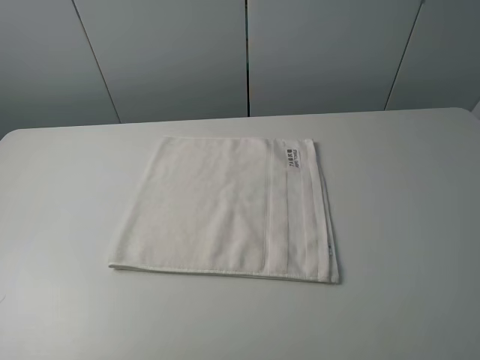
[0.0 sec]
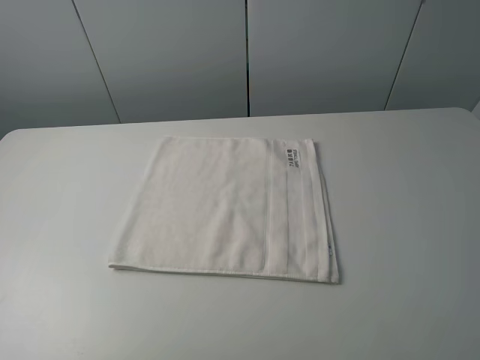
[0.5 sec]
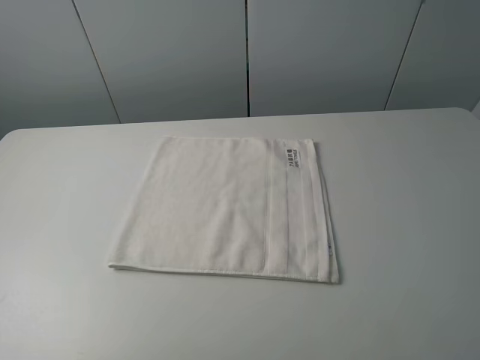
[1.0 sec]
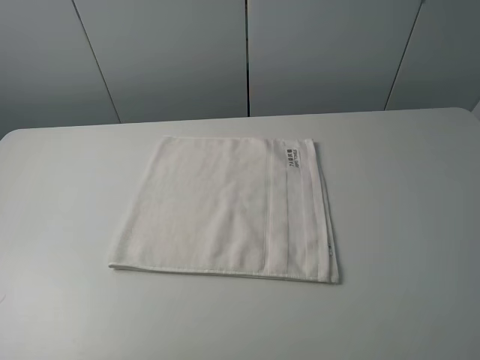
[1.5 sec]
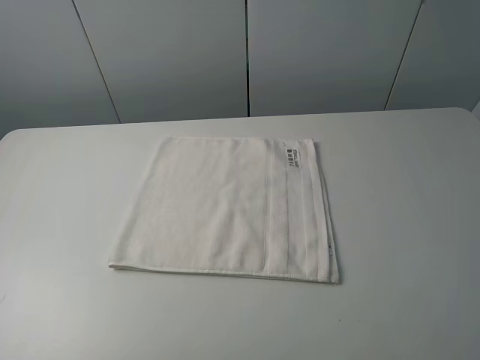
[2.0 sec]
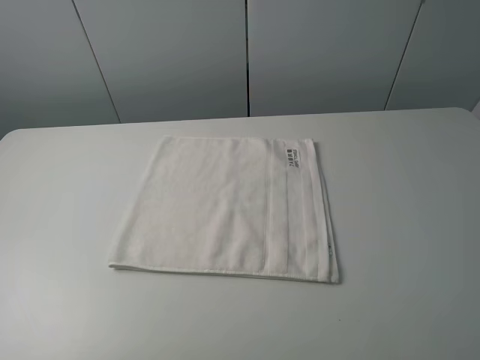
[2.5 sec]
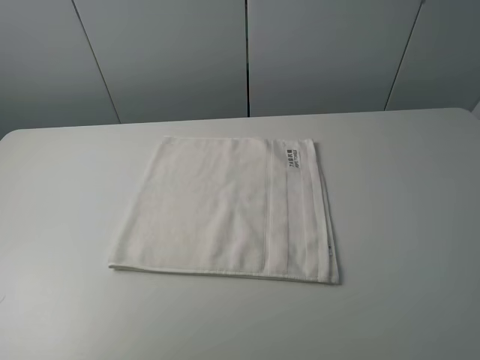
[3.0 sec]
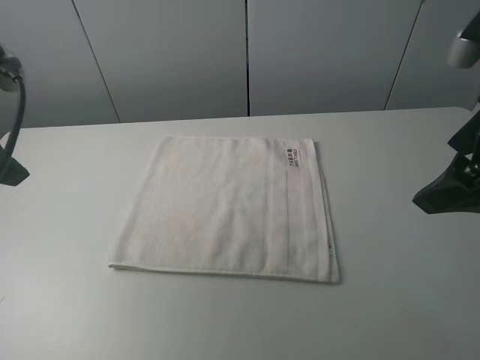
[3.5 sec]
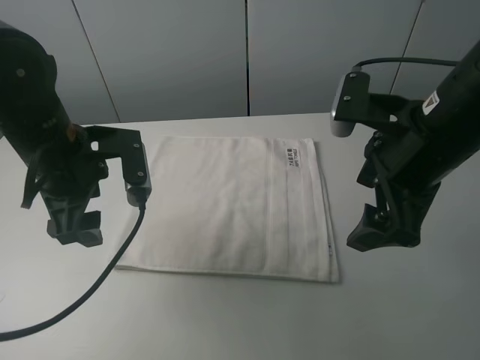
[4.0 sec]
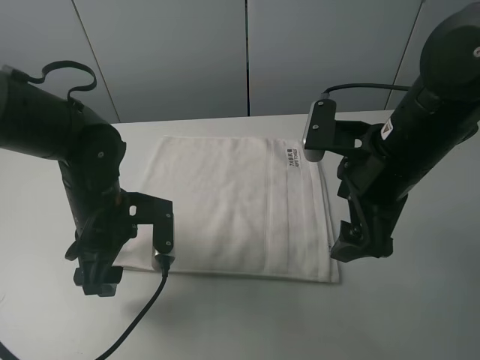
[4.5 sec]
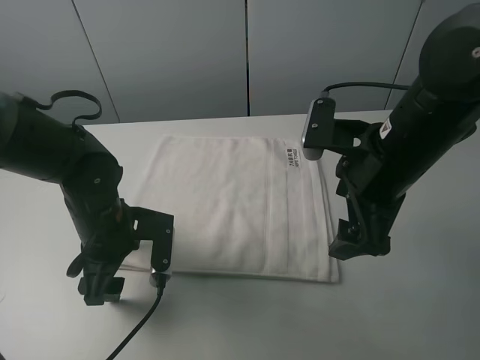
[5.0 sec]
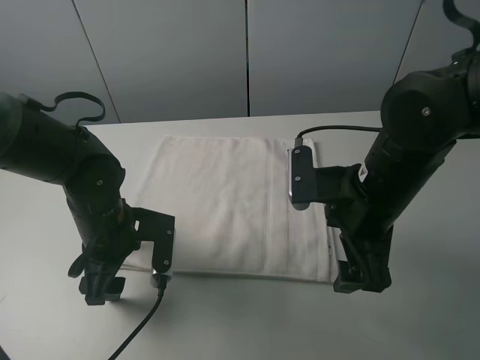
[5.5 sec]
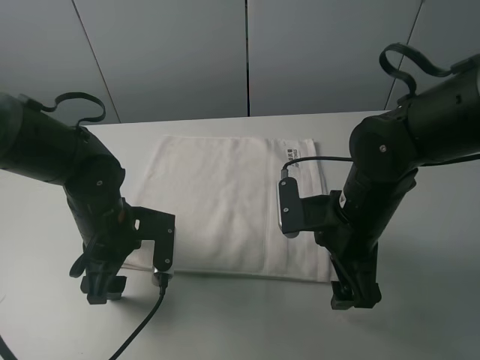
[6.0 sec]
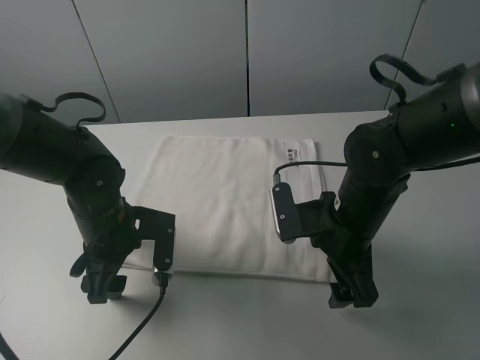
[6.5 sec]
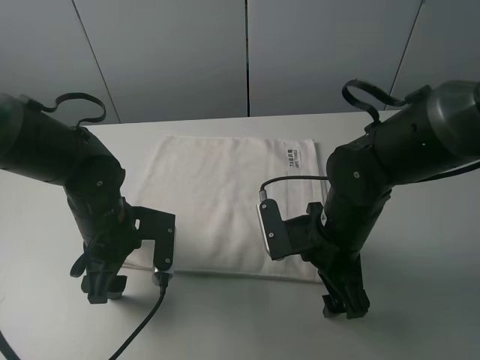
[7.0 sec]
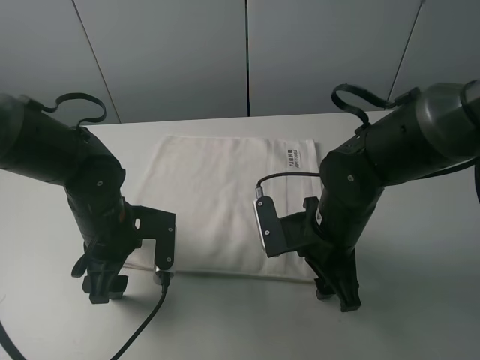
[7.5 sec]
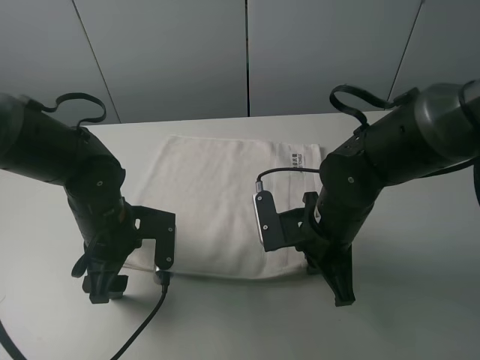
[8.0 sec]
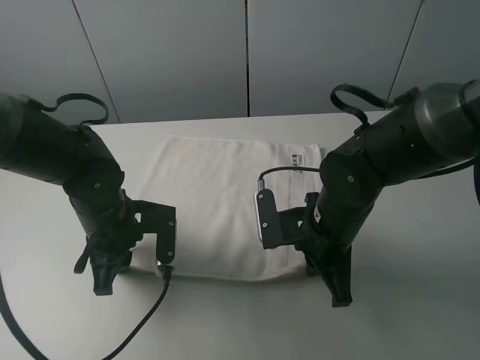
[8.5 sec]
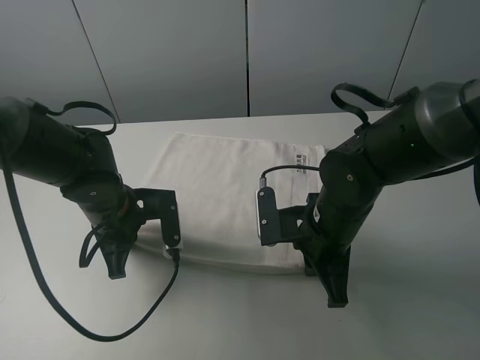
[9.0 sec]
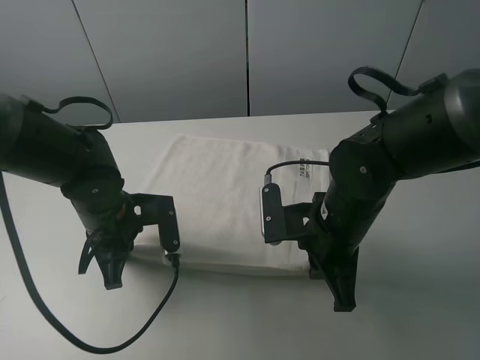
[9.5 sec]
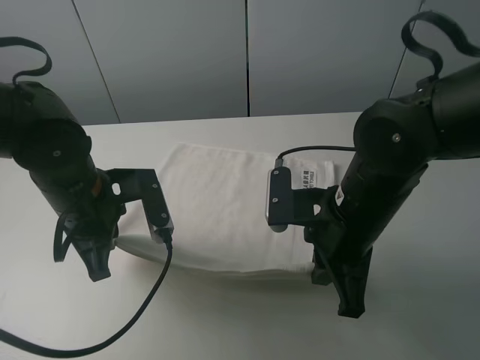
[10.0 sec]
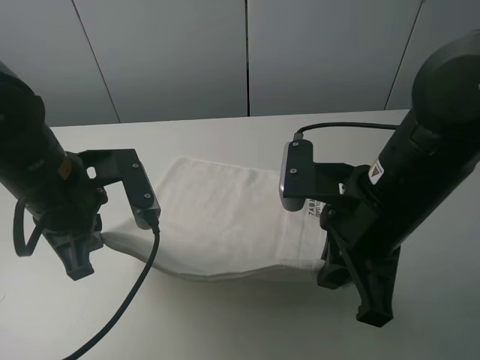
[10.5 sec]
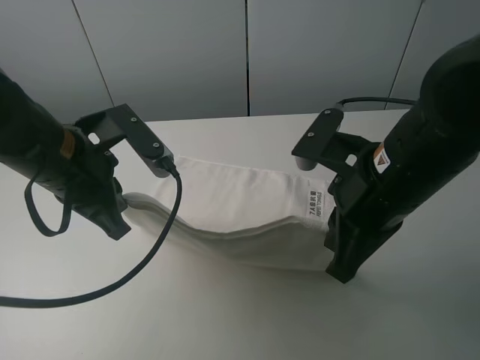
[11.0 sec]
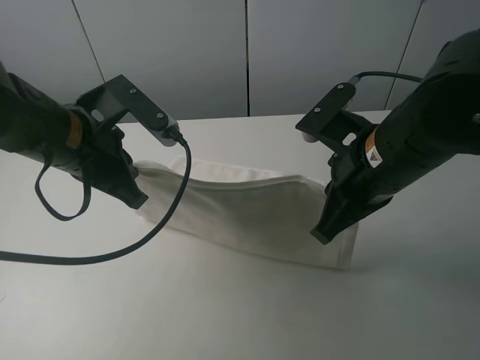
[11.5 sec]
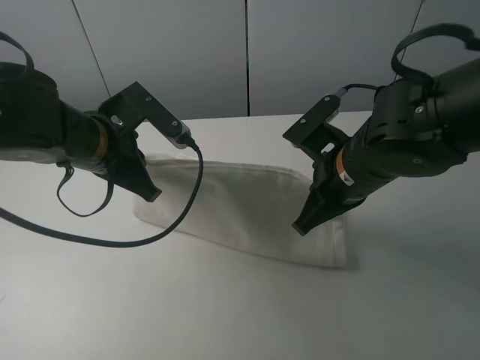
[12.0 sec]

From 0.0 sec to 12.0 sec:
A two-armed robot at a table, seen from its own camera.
Task of the whole recording: fold the towels on the table.
Step, from 0.0 sec to 8.0 sec: Grasp the white towel with the right gripper.
From 0.0 sec to 2.0 sec: Neither gripper changes place.
From 2.0 sec to 4.0 sec: The right gripper moves forward and to the left, approximately 25 cm, while the left gripper shifts roughly 30 cm forward and to the right.
From 4.0 sec to 6.0 sec: Both grippers move downward, approximately 10 cm.
From 6.0 sec to 8.0 sec: The right gripper closes.
From 8.0 sec to 10.0 sec: Both grippers travel together upward, about 5 cm. The left gripper closes.
From 10.0 sec to 12.0 sec: The left gripper ends up roughly 5 cm from where it was.

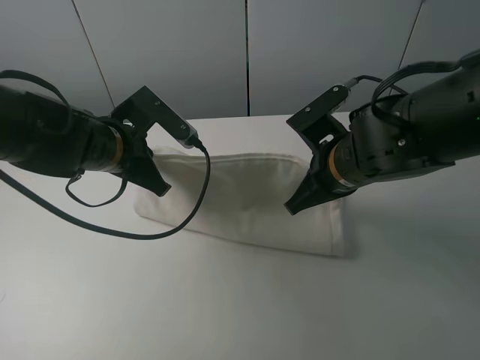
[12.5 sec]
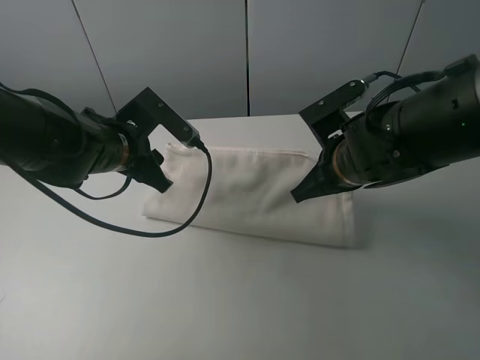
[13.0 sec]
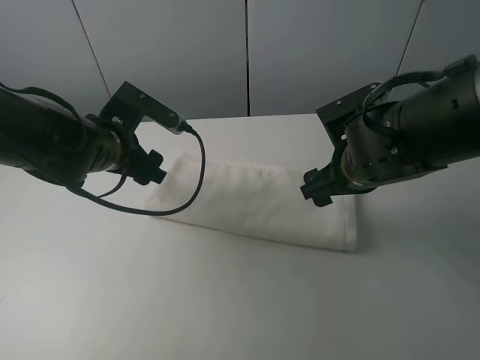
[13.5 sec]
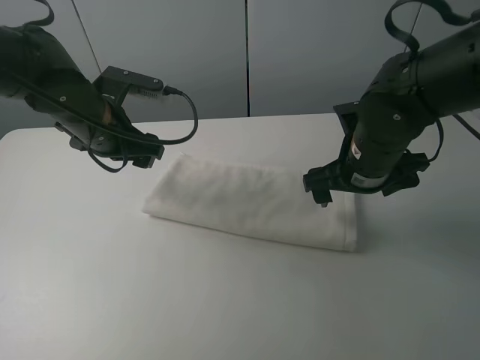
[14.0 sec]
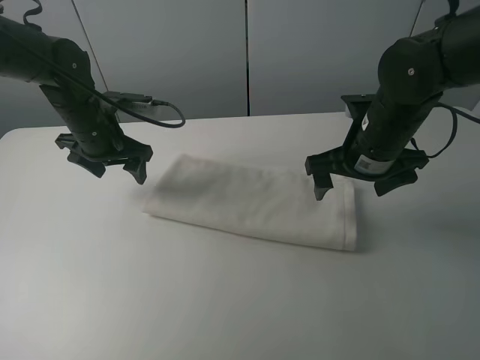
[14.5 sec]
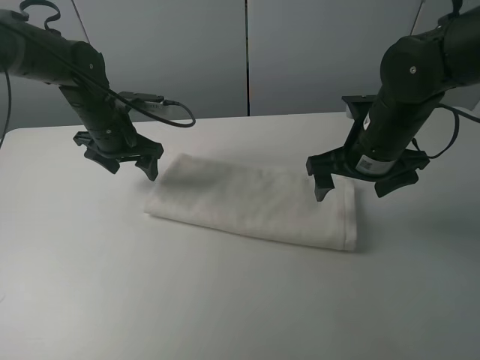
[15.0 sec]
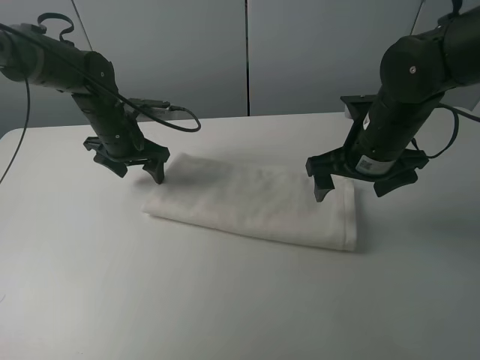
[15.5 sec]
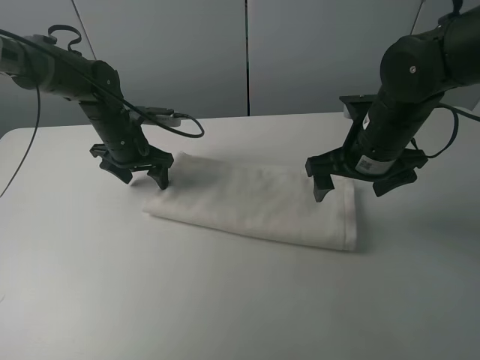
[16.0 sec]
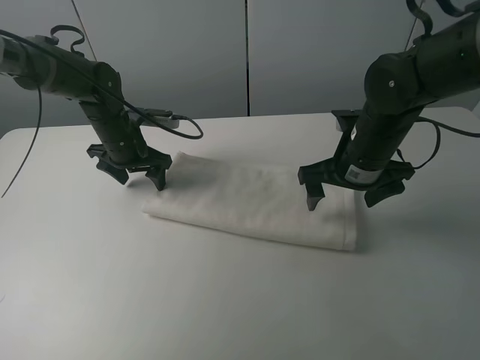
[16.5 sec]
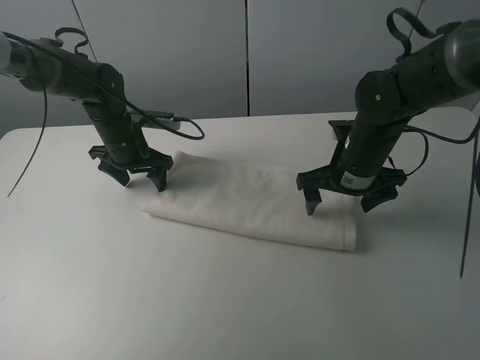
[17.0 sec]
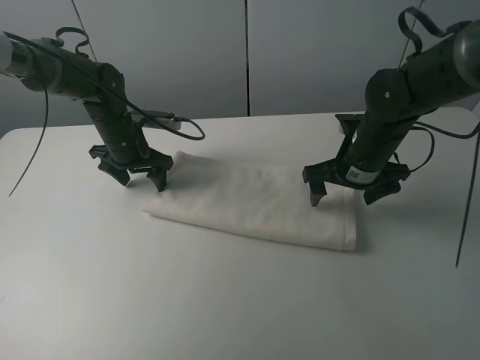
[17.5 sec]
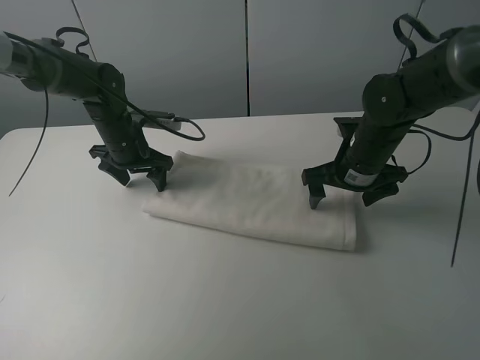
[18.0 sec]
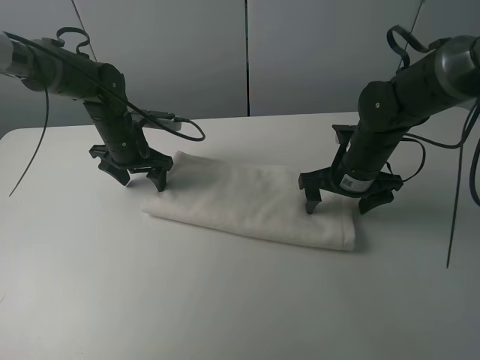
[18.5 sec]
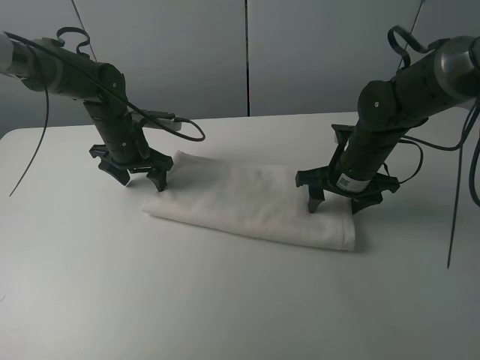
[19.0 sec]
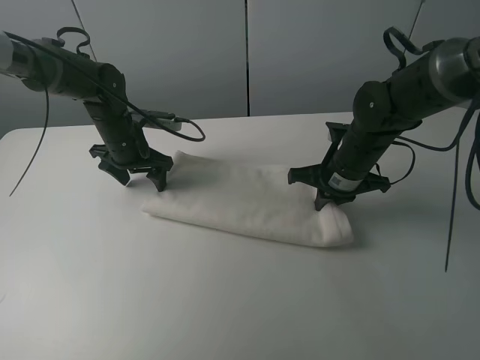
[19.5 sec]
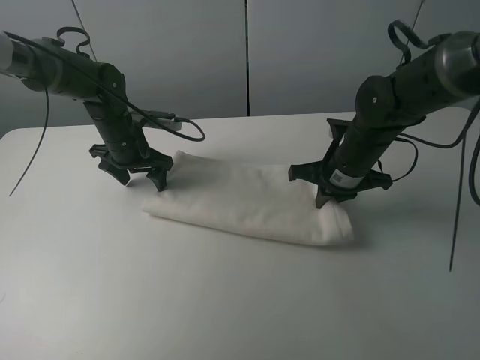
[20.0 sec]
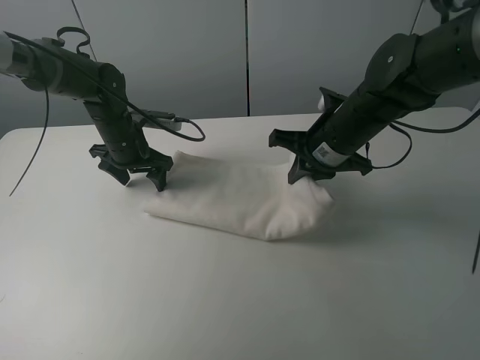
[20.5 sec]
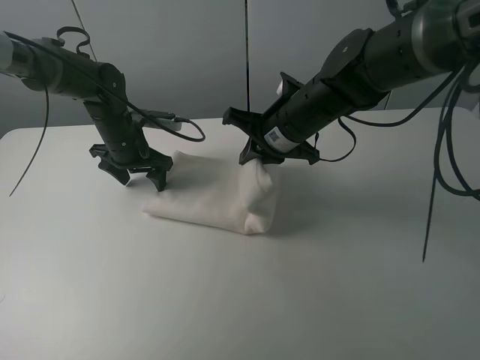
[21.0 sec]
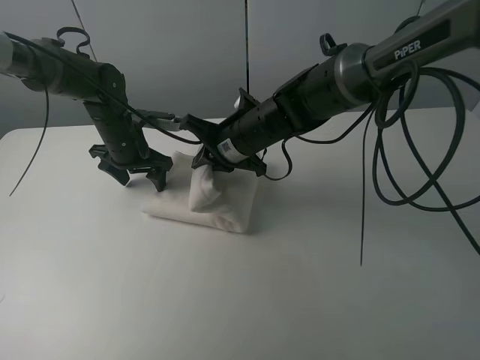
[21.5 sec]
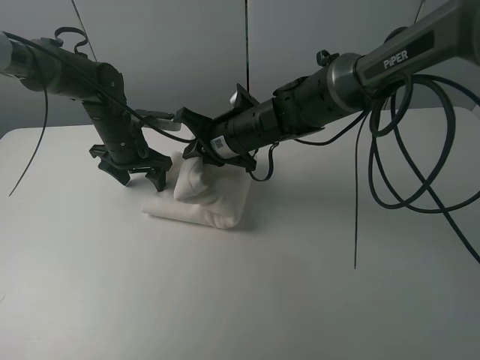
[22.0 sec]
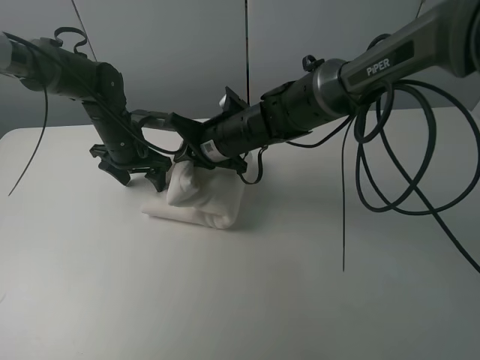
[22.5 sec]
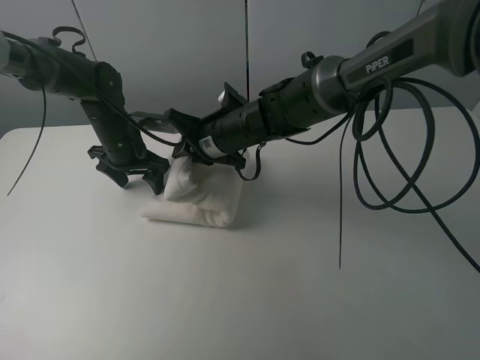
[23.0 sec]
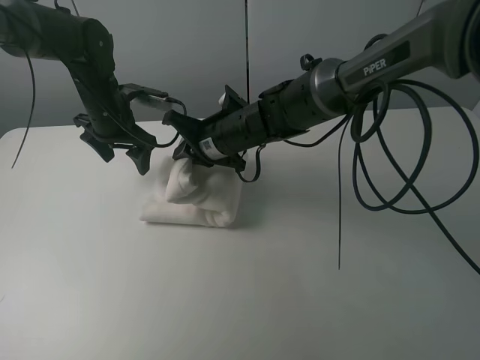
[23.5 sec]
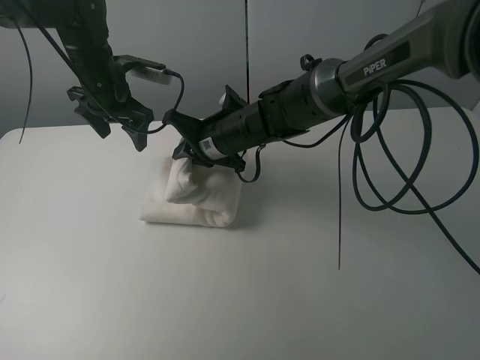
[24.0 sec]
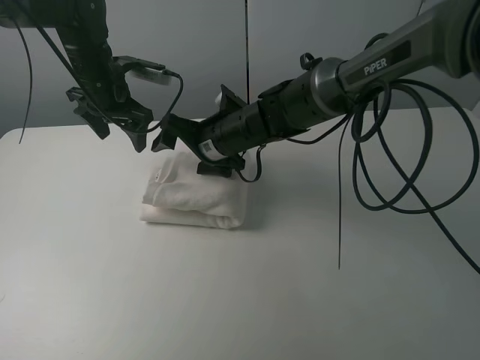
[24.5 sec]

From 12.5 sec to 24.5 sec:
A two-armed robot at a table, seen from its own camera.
Task of the whole recording: fold the towels on the table.
Step, from 14.0 sec to 17.0 sec: Press on the white towel with the left gripper.
From 12.5 sec to 14.5 sec: The right gripper ends up some 5 cm from where it was, and opens; the left gripper travels forward and to the left by roughly 10 cm, and opens up.
From 14.5 sec to 16.5 sec: The left gripper changes place by about 5 cm.
From 16.5 sec to 18.5 sec: The right gripper changes place by approximately 5 cm.
From 18.5 sec to 20.5 sec: The right gripper moves upward, about 5 cm, and closes its fingers.
From 20.5 sec to 22.5 sec: The right gripper is displaced to the left by approximately 15 cm.
From 22.5 sec to 24.5 sec: The left gripper heads upward, covering roughly 10 cm. Meanwhile the right gripper opens its fingers.

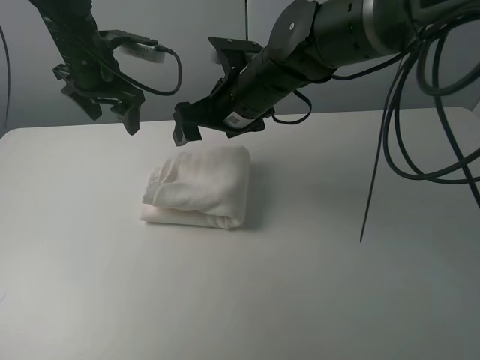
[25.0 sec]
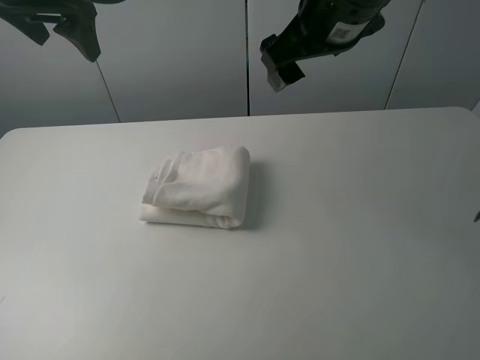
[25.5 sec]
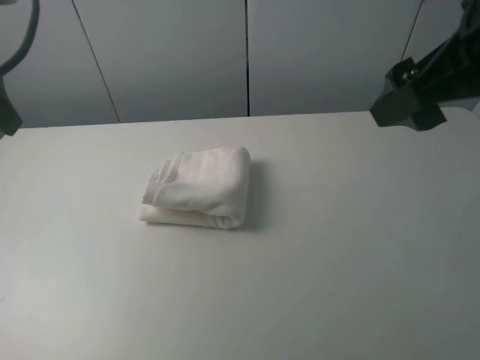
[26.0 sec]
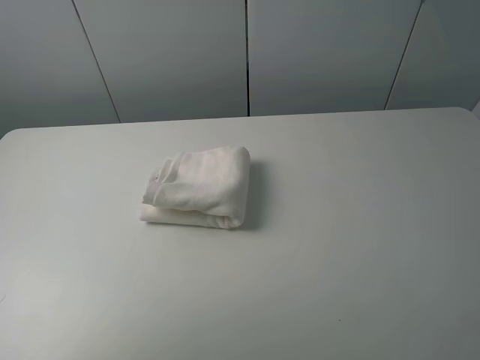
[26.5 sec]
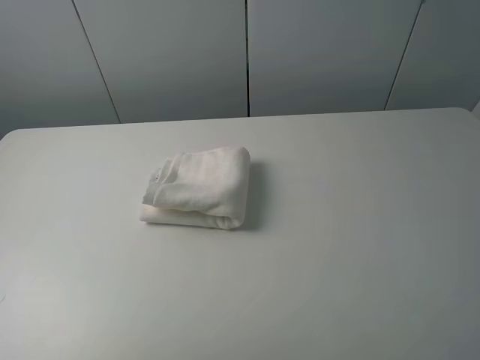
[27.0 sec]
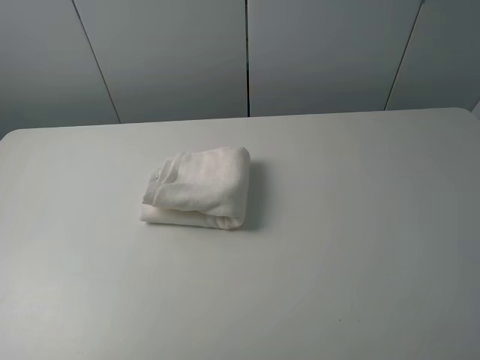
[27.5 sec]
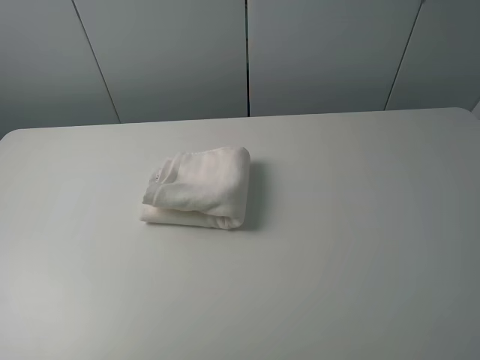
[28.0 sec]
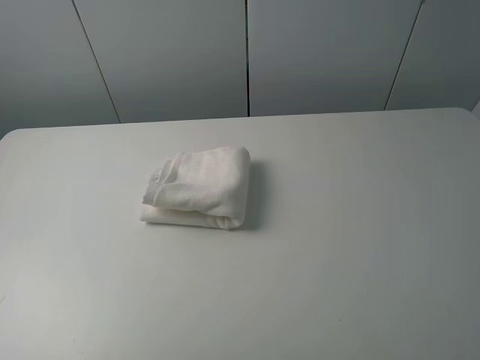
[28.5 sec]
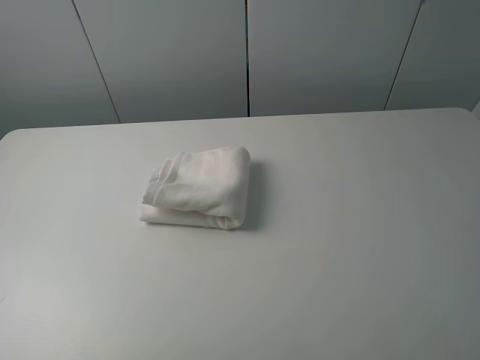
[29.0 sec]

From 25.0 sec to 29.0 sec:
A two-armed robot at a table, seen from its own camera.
Task of the whole recording: fold the towels on the table.
From 25.0 sec to 27.0 sec: The right gripper travels backward and to the right by roughly 40 cm, while the left gripper moves backward, about 40 cm.
